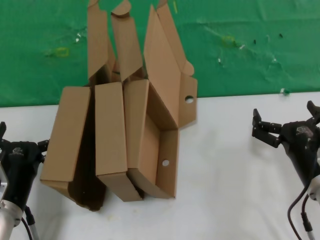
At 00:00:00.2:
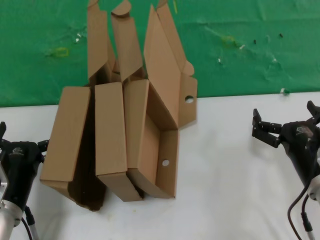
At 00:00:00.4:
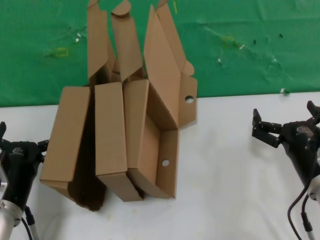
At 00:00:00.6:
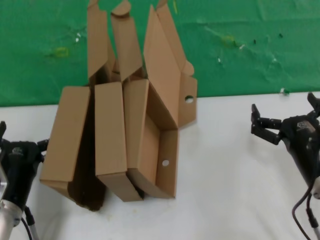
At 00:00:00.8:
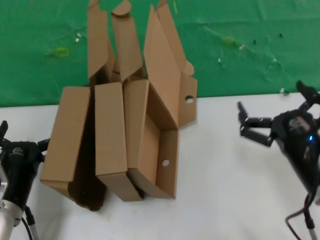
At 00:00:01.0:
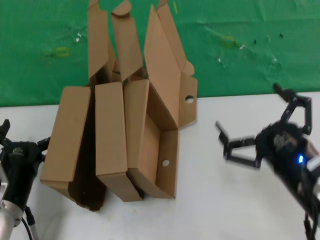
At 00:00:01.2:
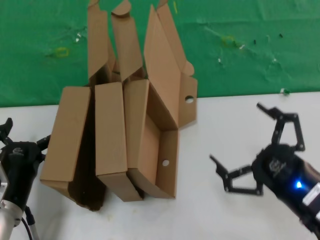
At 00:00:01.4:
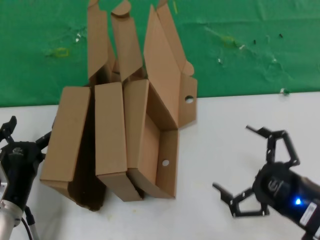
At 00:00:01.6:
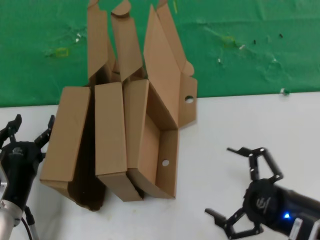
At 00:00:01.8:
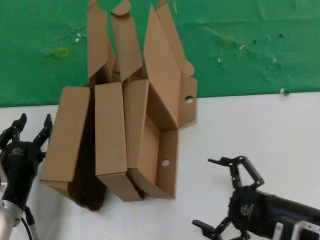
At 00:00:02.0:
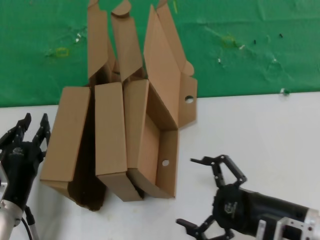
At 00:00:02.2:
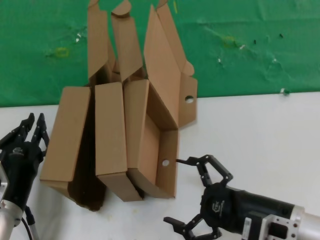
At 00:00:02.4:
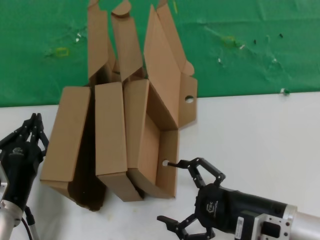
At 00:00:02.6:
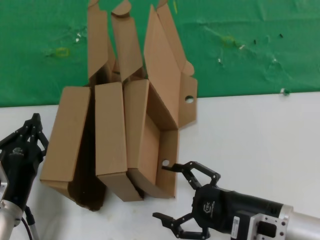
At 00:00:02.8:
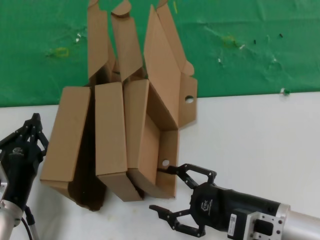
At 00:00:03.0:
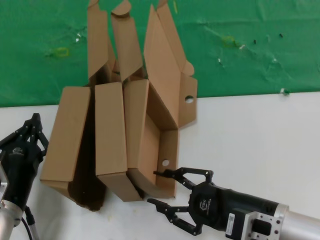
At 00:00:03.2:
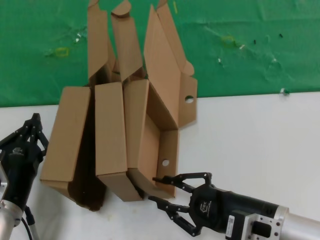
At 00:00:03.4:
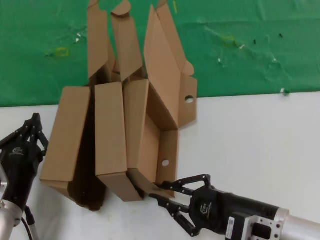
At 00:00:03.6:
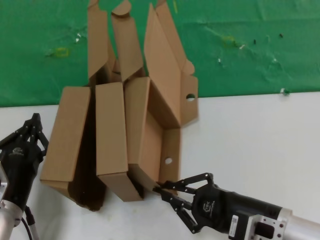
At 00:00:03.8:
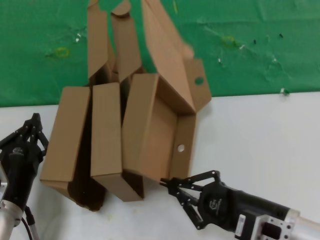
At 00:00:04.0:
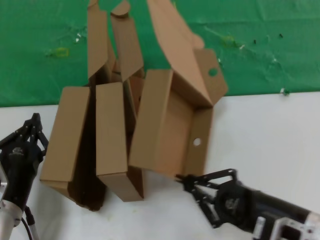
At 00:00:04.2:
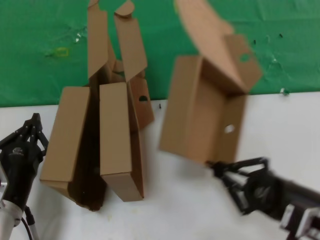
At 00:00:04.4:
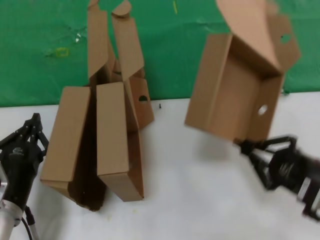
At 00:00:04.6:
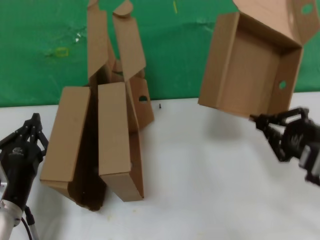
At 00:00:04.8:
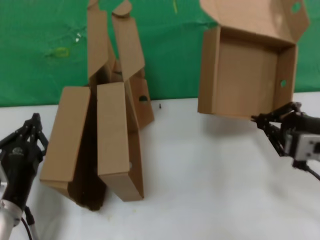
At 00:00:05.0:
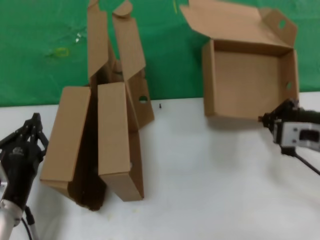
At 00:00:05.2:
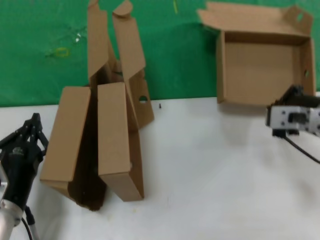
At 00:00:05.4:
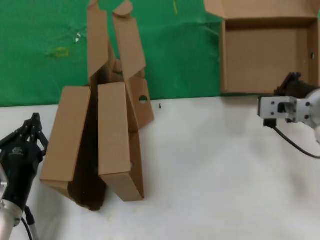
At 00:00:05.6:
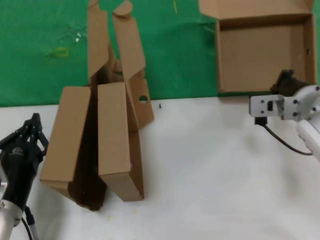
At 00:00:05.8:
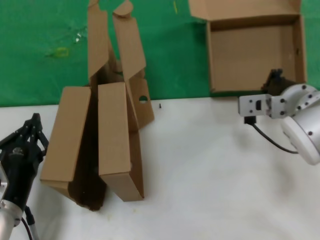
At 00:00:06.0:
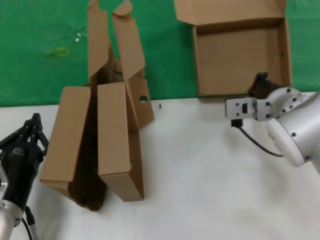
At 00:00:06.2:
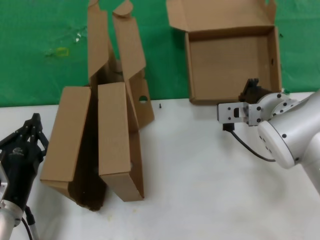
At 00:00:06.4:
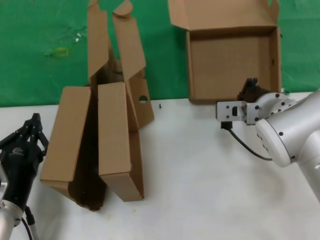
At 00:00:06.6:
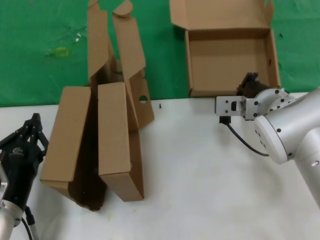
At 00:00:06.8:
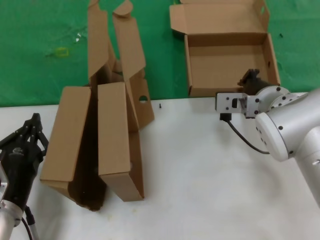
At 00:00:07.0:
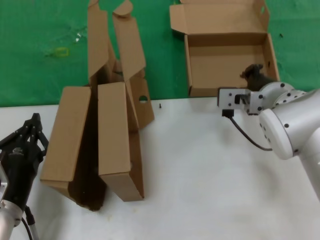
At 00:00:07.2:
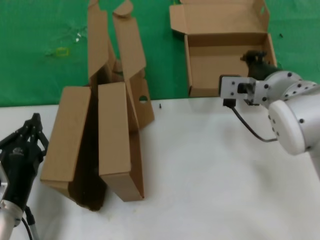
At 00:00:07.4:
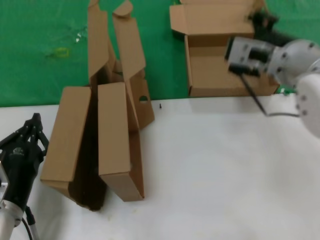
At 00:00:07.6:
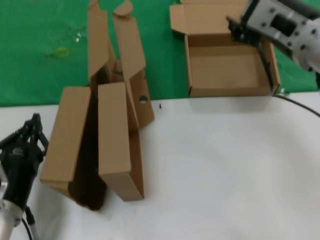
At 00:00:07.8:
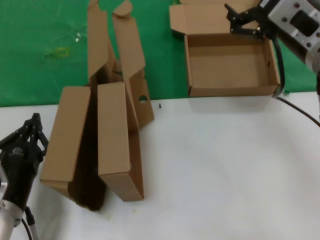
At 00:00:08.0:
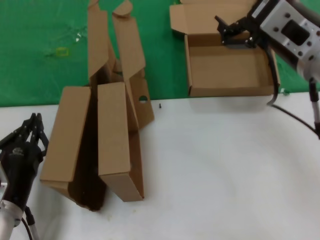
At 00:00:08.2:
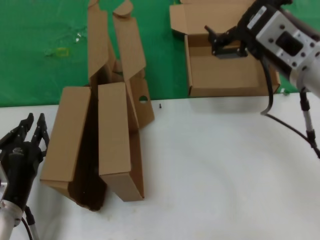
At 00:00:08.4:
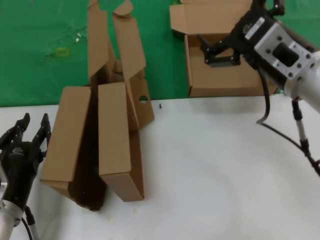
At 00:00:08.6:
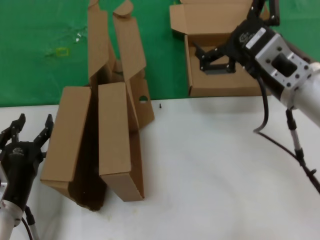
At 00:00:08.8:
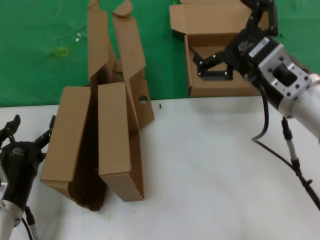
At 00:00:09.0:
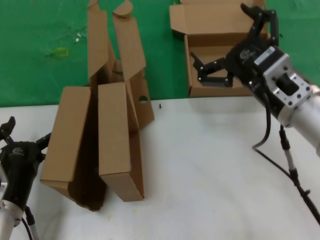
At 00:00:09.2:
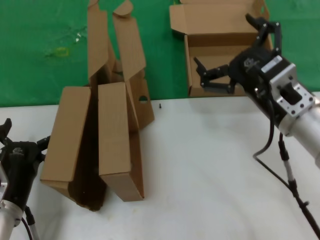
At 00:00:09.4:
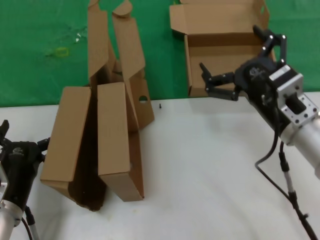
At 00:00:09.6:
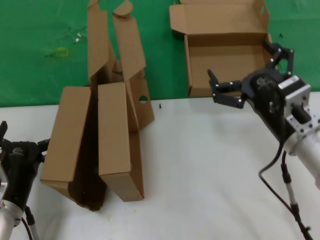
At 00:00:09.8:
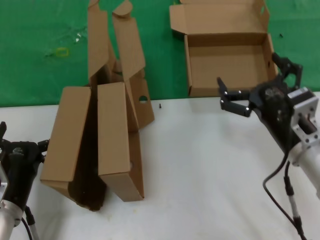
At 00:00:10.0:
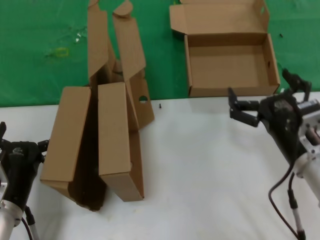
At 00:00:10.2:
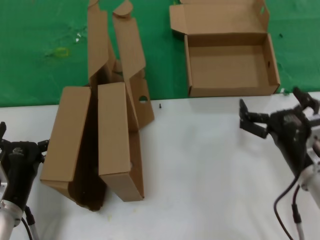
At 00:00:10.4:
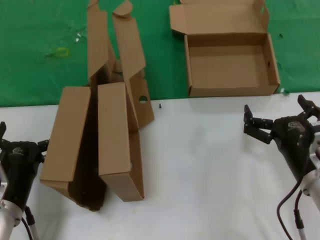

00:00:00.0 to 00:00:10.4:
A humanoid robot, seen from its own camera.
Task of the whole recording: pick up the paper box and put it at the back.
Step, 00:00:00.0 to 00:00:03.6: Grasp the paper box.
Step, 00:00:03.8 to 00:00:06.8: Place the paper box on the table.
00:00:00.0 to 00:00:01.4: The right hand is displaced backward by roughly 10 cm.
00:00:01.4 to 00:00:03.0: The right hand heads to the left and forward, covering some 10 cm.
00:00:03.0 to 00:00:04.4: The right hand shifts some 10 cm to the right and upward.
00:00:04.4 to 00:00:06.0: The right hand is displaced forward and to the left by approximately 20 cm.
00:00:06.0 to 00:00:07.4: The right hand travels upward by some 10 cm.
00:00:07.4 to 00:00:09.0: The right hand shifts about 5 cm downward.
00:00:09.0 to 00:00:10.4: The right hand travels downward by roughly 15 cm.
